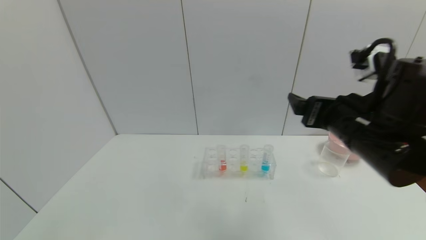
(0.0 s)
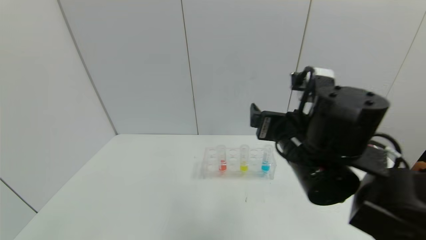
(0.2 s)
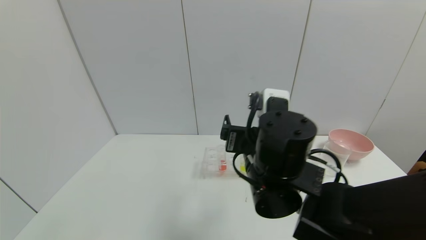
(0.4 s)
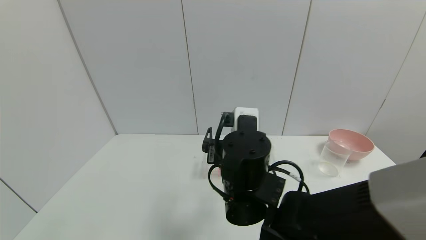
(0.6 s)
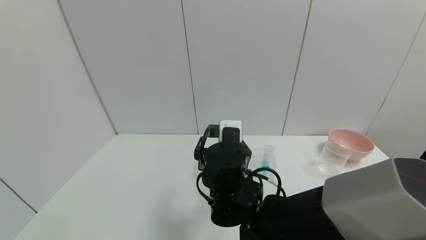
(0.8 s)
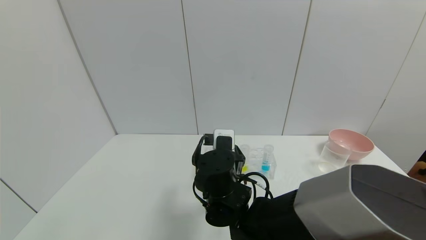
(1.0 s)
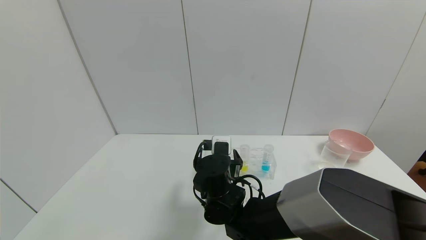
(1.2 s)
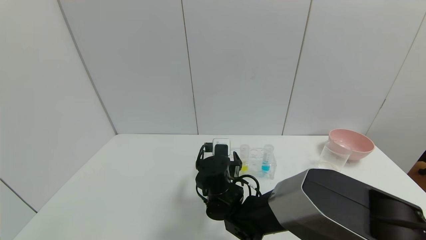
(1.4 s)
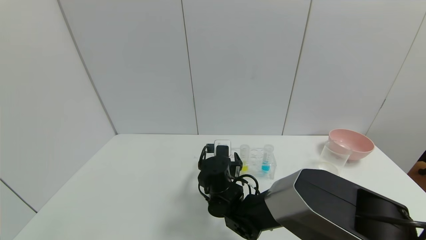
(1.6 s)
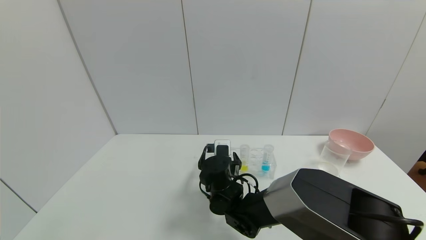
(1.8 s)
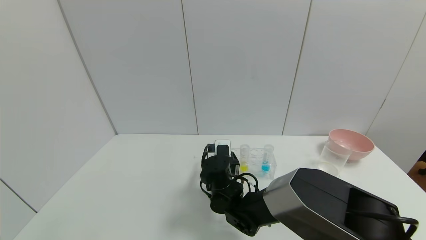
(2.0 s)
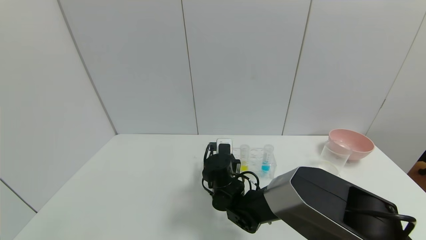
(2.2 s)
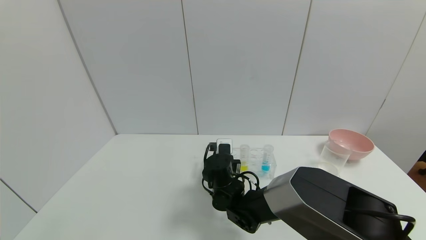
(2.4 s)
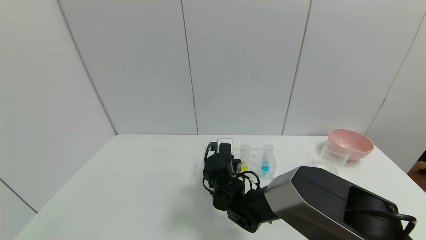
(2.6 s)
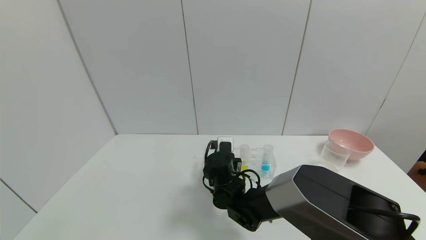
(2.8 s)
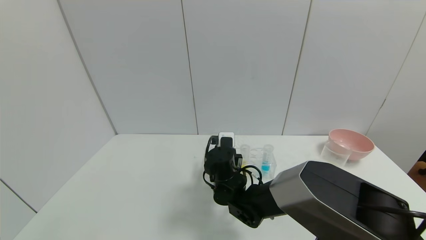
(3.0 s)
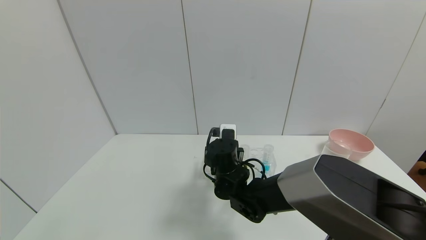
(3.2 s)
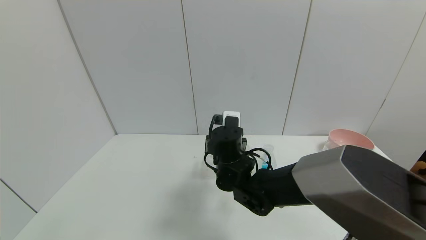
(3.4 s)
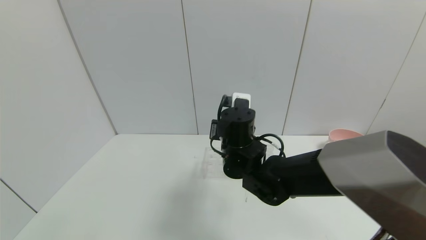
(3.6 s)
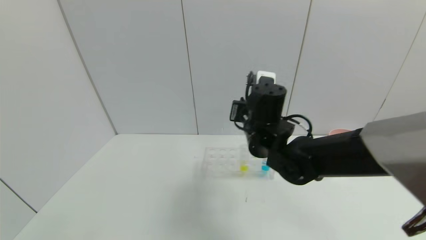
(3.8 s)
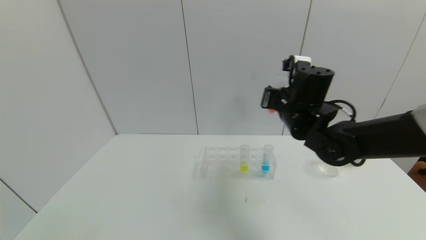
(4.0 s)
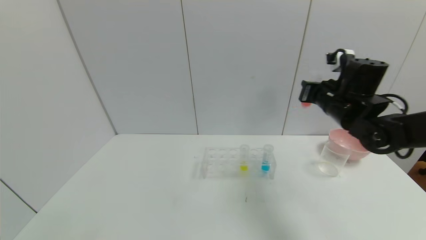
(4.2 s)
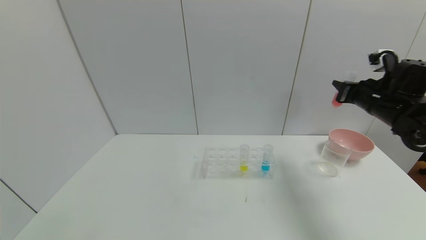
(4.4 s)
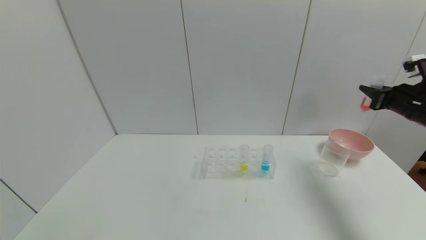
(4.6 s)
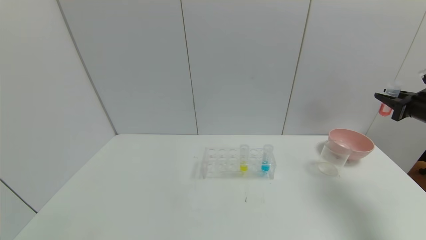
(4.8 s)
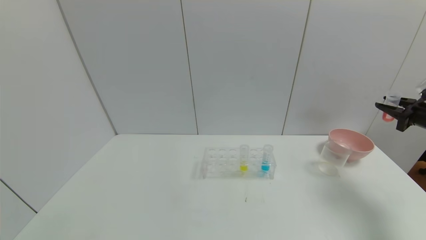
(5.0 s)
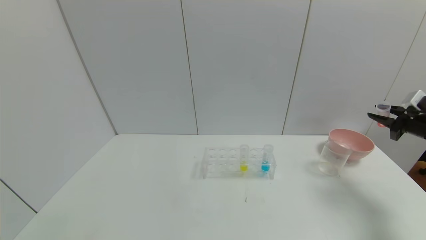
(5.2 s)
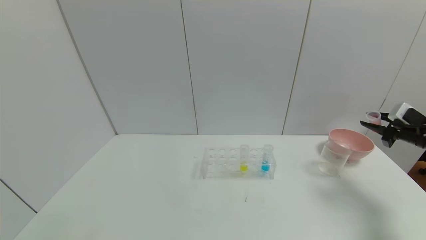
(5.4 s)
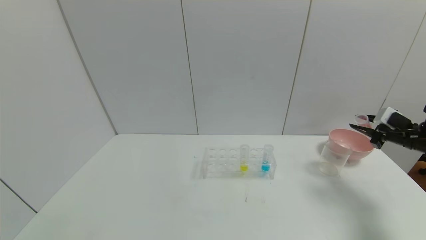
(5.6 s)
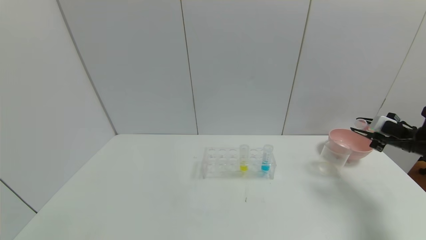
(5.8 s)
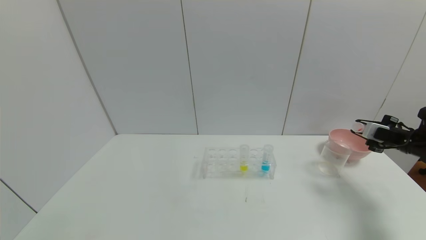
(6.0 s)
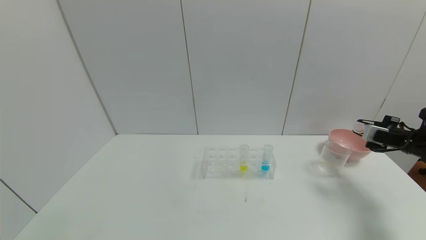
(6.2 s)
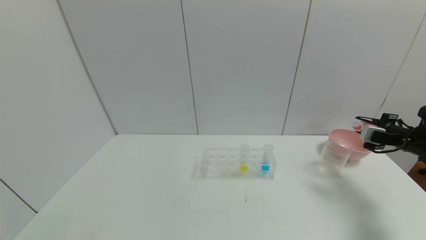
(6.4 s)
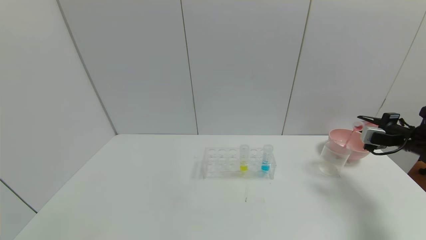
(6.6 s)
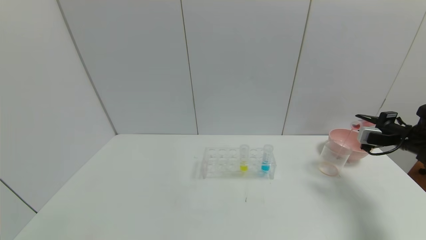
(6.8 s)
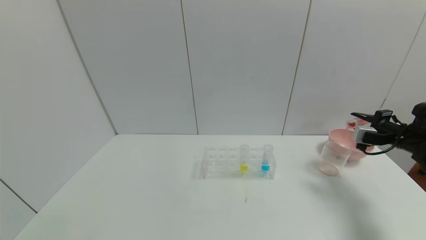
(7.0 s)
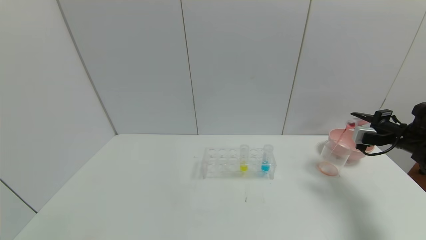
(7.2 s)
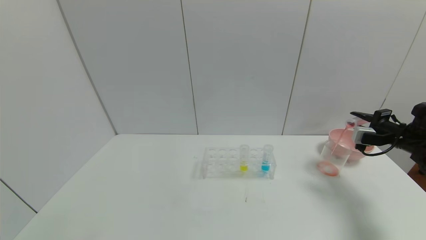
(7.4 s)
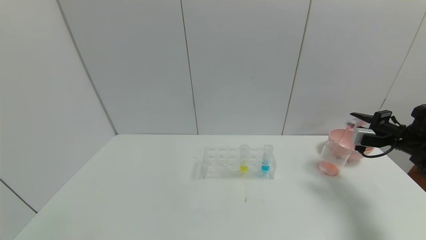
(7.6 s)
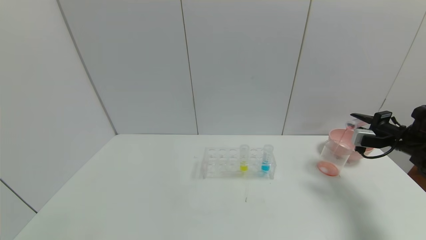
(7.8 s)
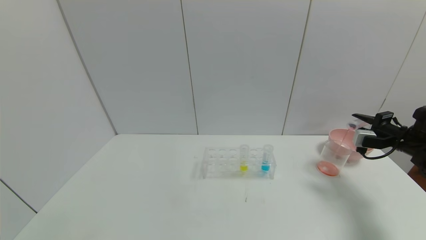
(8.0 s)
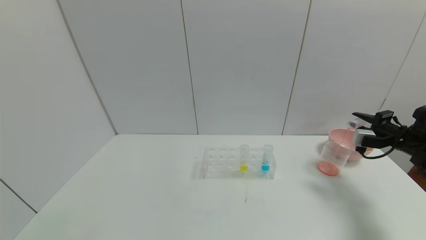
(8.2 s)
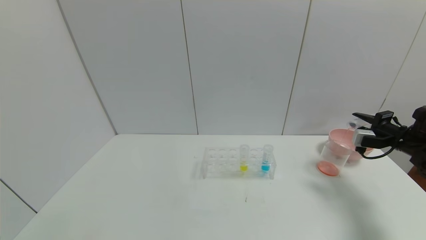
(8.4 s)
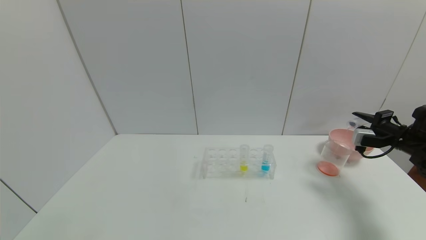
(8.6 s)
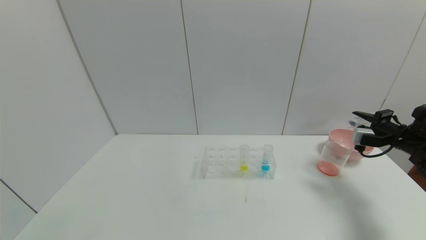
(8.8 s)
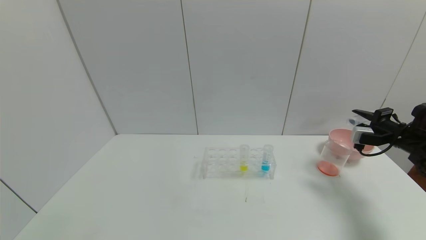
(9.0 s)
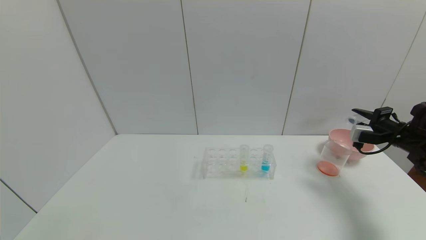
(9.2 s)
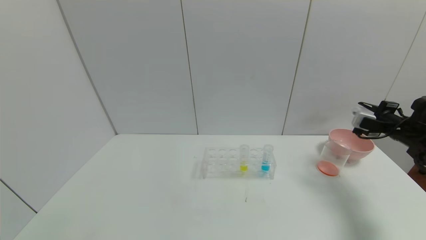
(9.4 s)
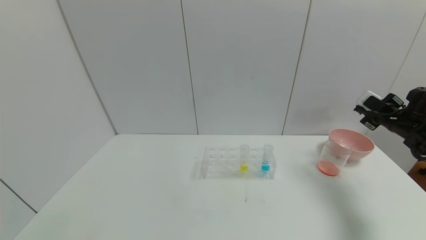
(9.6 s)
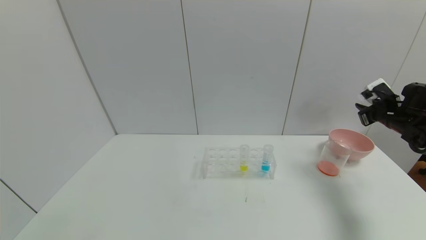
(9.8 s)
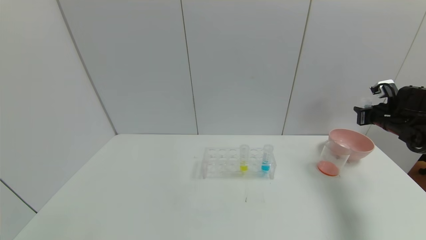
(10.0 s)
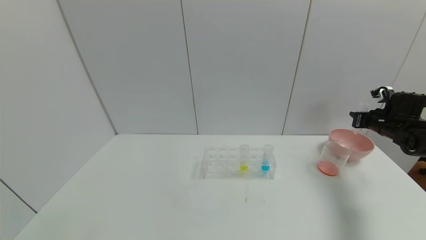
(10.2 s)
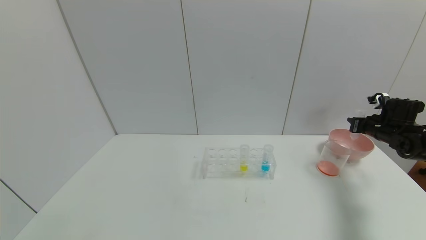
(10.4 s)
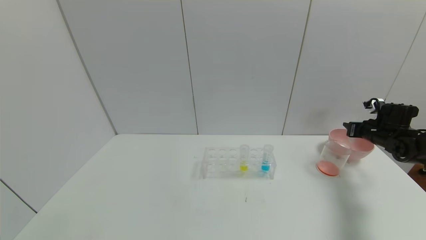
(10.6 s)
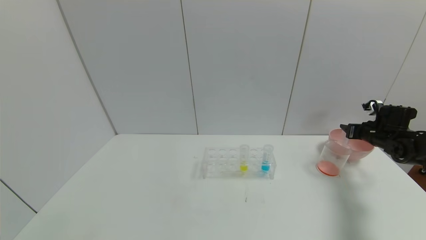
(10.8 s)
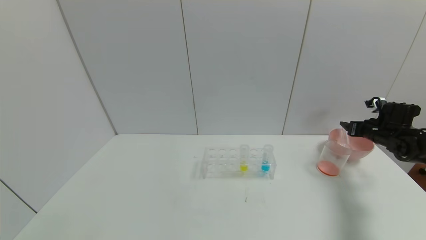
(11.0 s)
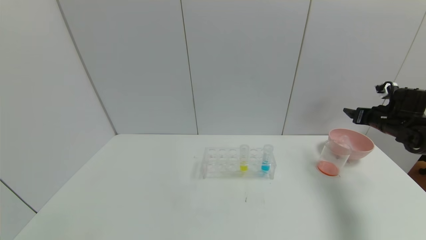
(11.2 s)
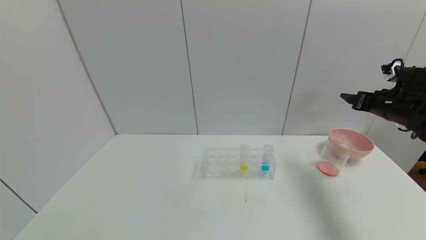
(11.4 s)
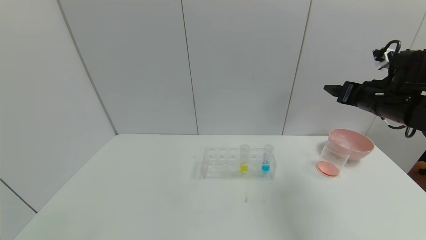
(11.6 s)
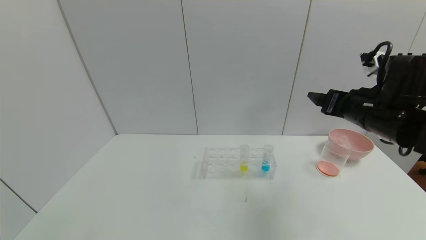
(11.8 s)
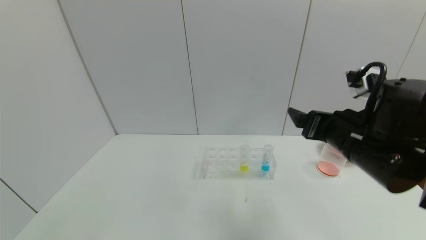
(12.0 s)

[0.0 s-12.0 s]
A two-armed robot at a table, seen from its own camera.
Task of the whole recording: pick up the test tube with yellow pigment and the test tube with red pigment by grippers and pour them into the beaker.
Step, 0.0 to 5.0 s: Pick up the test tube containing the red reagent with right gripper.
Step, 5.2 to 9.0 s: Pour the red reagent into the graduated cylinder with right gripper.
Step, 9.2 to 11.2 s: Place the test tube into the bowl with right gripper.
0.0 to 1.6 s: The right gripper moves downward, to the left and forward, some 30 cm.
1.6 to 3.0 s: The right gripper closes its fingers.
3.0 to 4.4 s: The right gripper travels to the right and upward by approximately 40 cm.
4.4 to 6.0 s: The right gripper shifts about 15 cm to the right and downward.
7.6 to 9.0 s: Both grippers stay put.
9.0 to 10.4 s: The right gripper is displaced forward by about 5 cm.
10.4 to 12.0 s: The right gripper travels to the left and backward by some 30 cm, and opens its fingers.

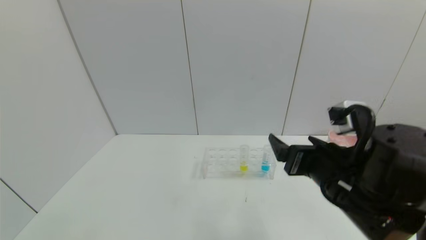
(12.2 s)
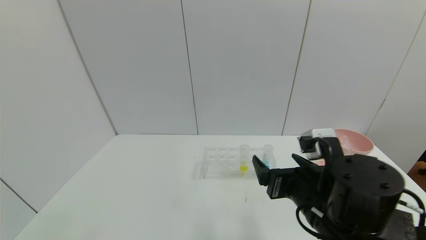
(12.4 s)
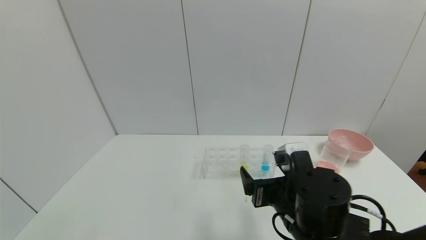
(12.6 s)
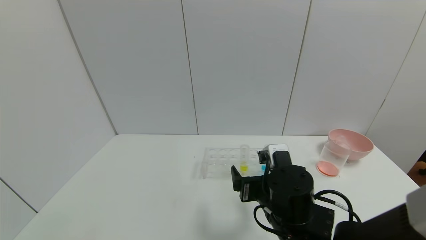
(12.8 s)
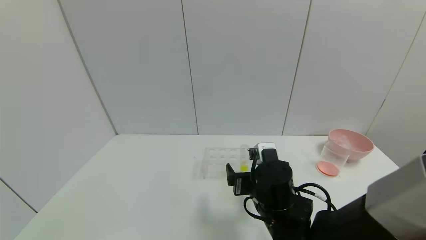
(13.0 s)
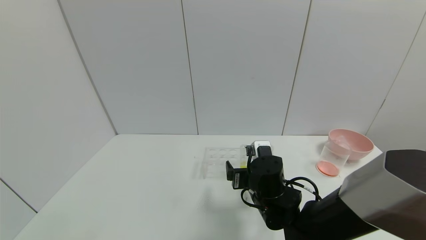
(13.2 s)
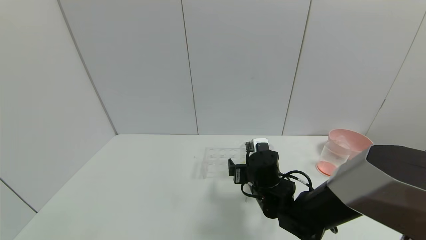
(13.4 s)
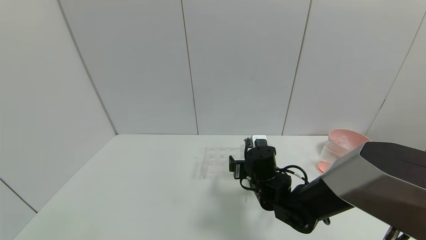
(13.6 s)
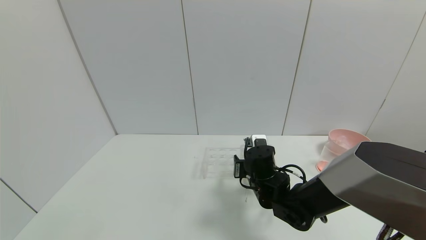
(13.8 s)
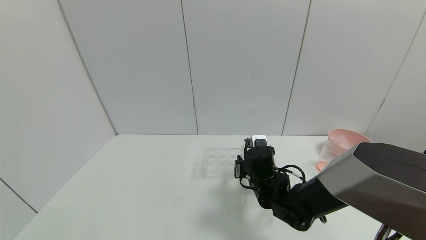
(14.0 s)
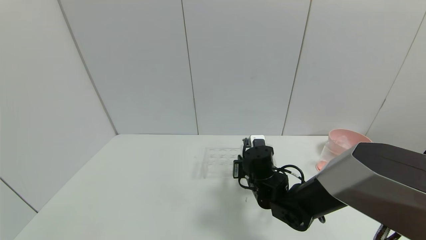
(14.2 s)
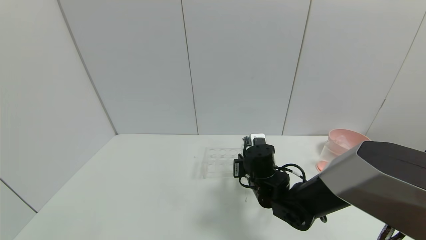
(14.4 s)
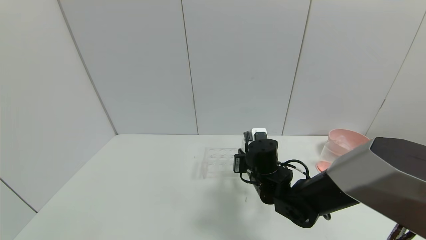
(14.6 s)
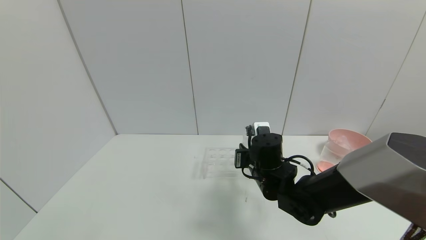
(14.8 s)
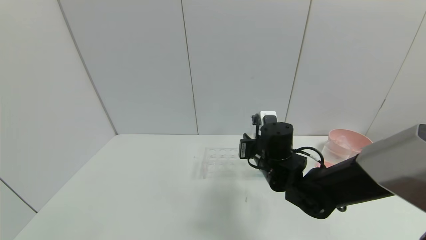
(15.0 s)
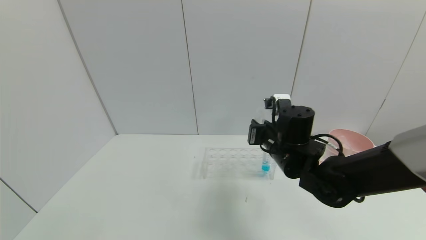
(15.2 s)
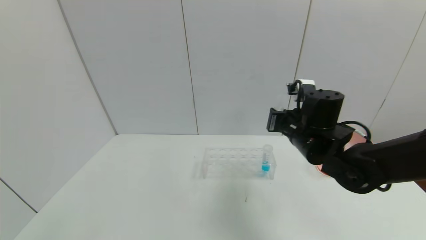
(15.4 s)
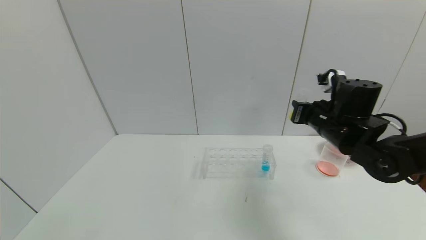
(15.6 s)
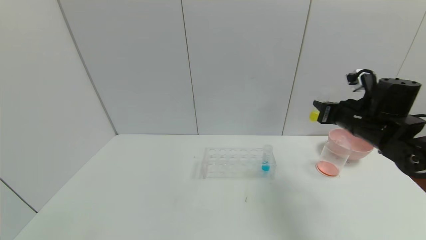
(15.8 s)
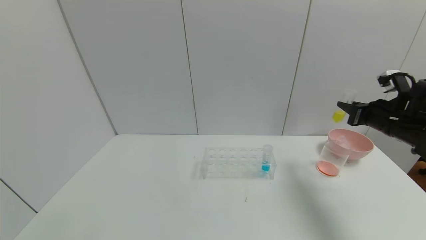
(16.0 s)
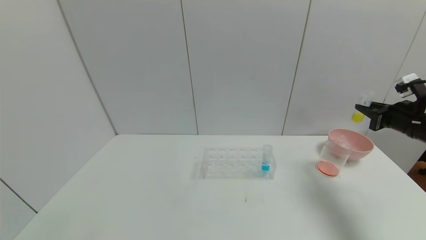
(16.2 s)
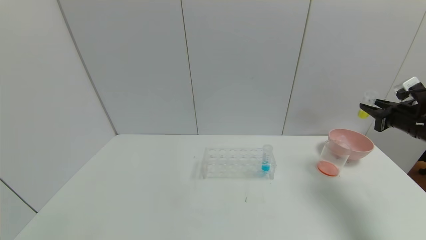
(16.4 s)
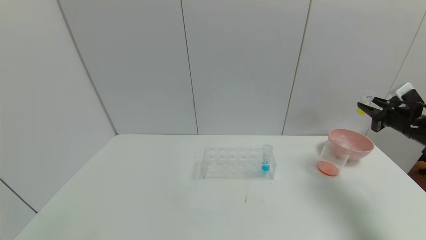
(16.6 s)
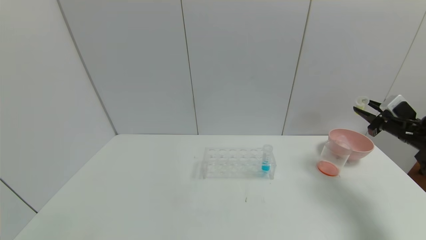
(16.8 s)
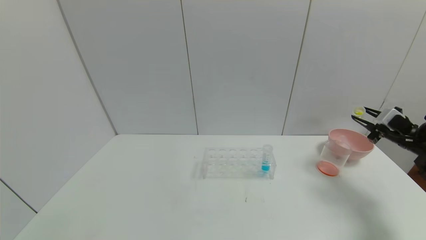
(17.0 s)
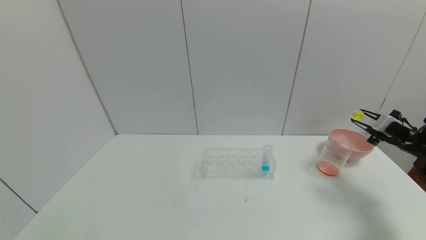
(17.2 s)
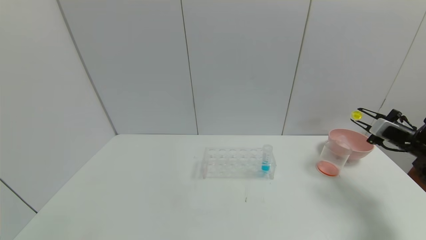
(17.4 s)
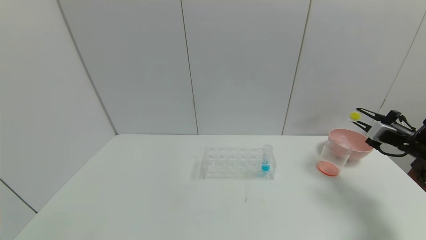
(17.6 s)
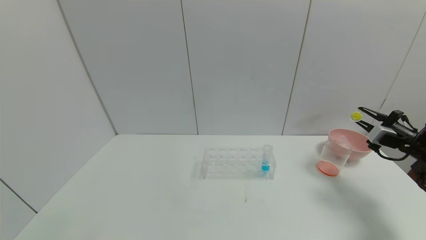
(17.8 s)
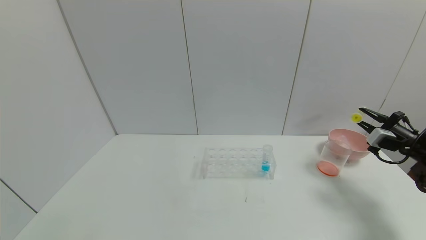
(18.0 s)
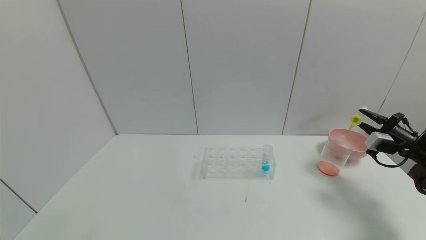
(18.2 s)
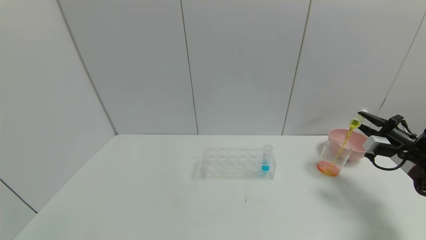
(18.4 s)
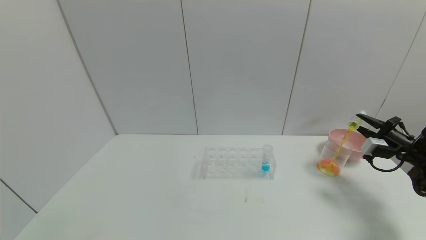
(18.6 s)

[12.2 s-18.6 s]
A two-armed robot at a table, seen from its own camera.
Task of the whole recording: pick up the test tube with yellow pigment and the test tube with red pigment by grippers and pour them into the beaker.
Step, 12.2 to 16.2 s: Pick up the test tube containing the yellow reagent with right gripper.
12.2 to 13.8 s: The right gripper goes roughly 20 cm downward, forward and to the left, and closes up.
13.8 to 15.4 s: The right gripper travels upward and to the right by approximately 15 cm, and closes its fingers.
15.4 to 17.0 s: The right gripper shifts roughly 30 cm to the right.
